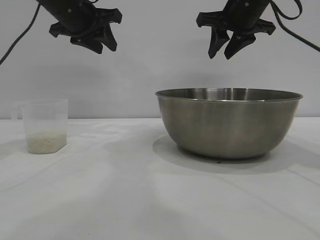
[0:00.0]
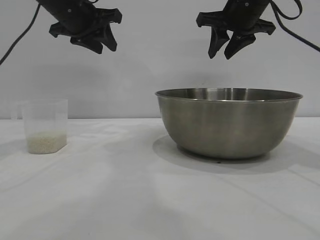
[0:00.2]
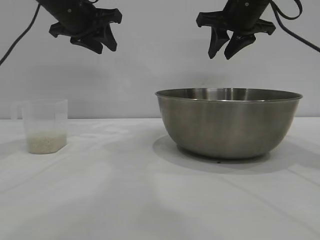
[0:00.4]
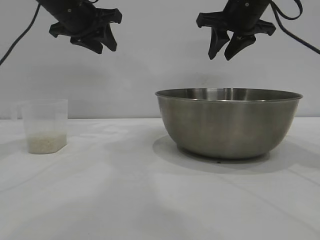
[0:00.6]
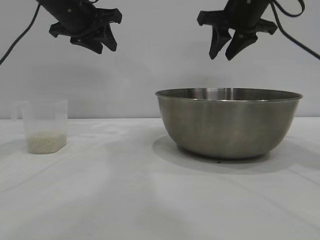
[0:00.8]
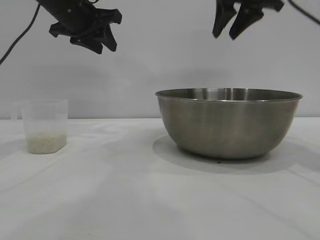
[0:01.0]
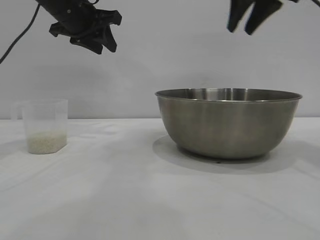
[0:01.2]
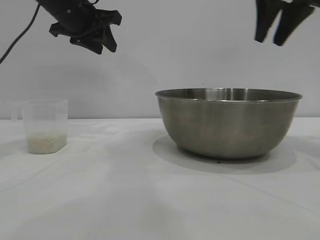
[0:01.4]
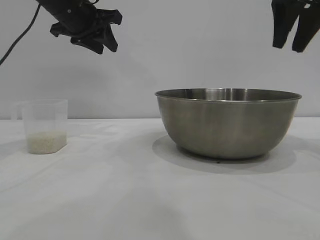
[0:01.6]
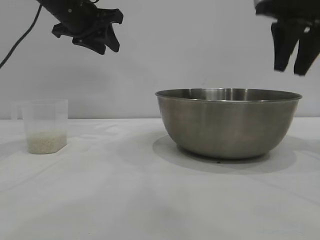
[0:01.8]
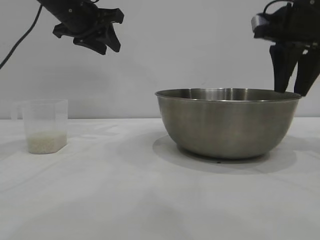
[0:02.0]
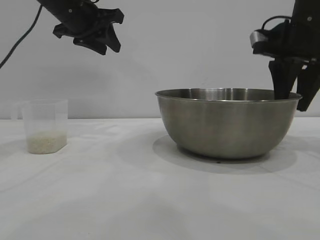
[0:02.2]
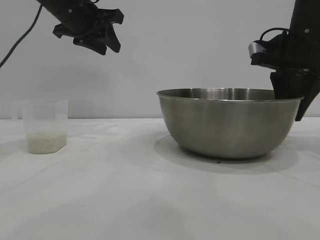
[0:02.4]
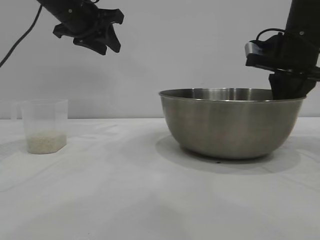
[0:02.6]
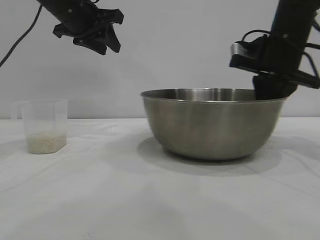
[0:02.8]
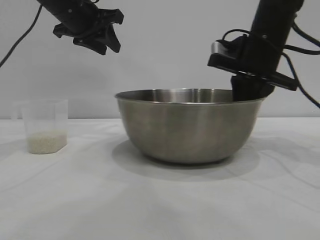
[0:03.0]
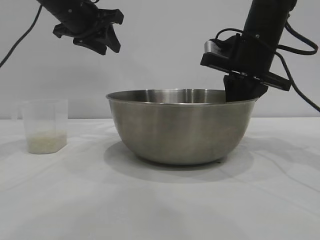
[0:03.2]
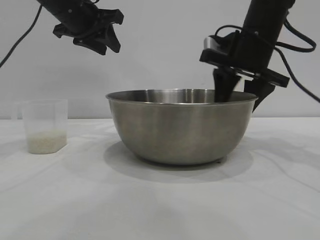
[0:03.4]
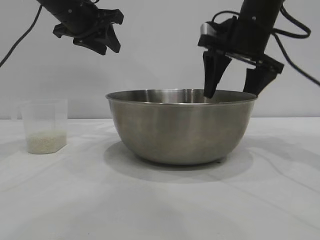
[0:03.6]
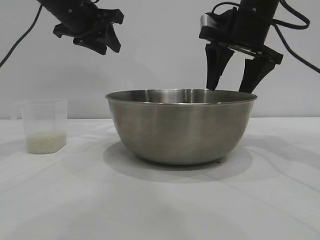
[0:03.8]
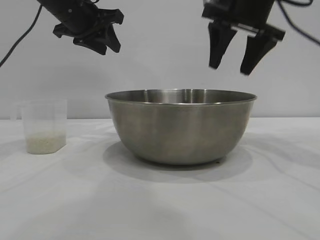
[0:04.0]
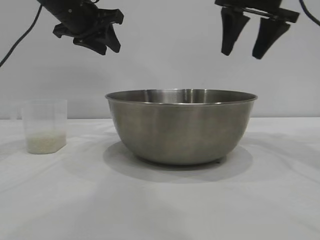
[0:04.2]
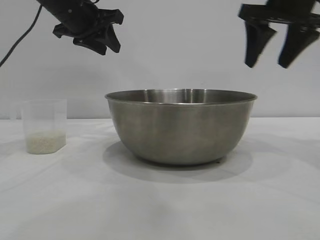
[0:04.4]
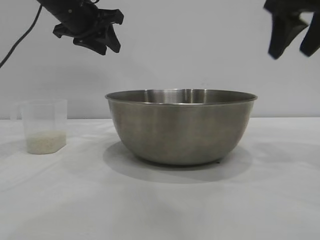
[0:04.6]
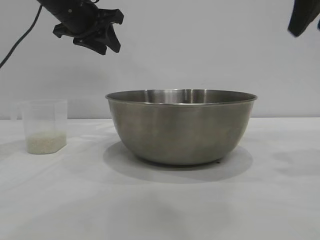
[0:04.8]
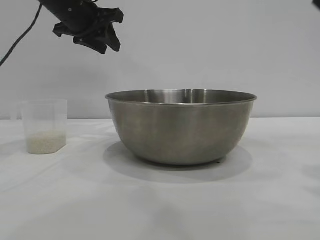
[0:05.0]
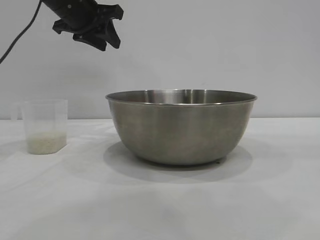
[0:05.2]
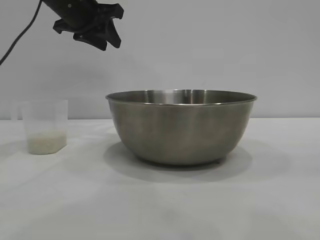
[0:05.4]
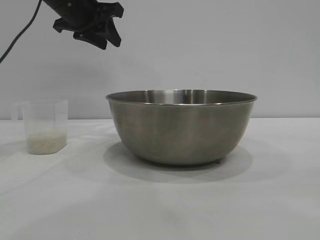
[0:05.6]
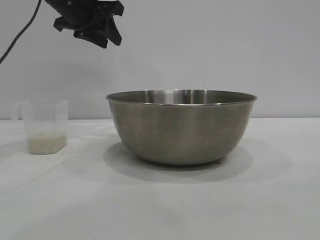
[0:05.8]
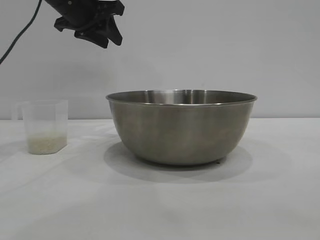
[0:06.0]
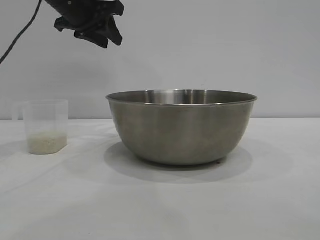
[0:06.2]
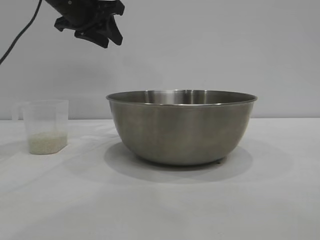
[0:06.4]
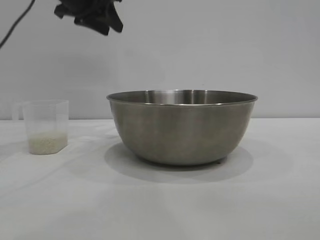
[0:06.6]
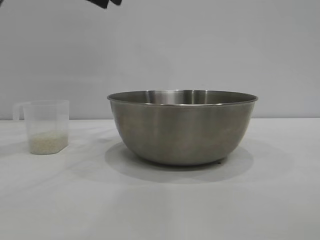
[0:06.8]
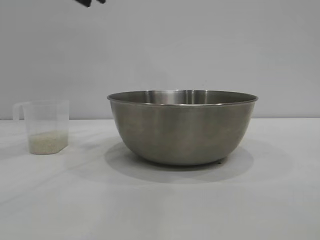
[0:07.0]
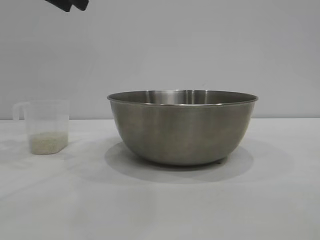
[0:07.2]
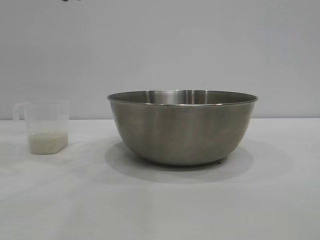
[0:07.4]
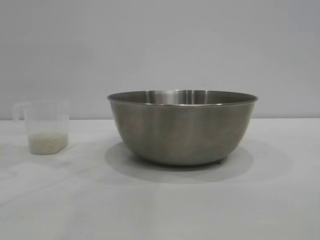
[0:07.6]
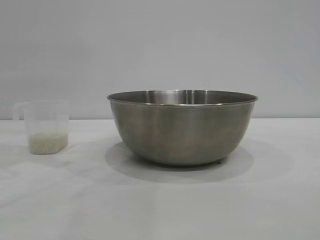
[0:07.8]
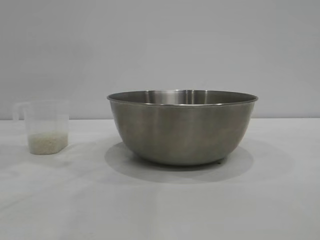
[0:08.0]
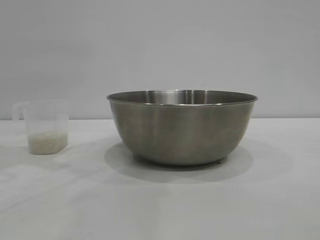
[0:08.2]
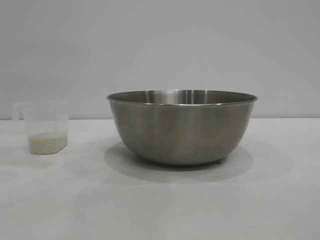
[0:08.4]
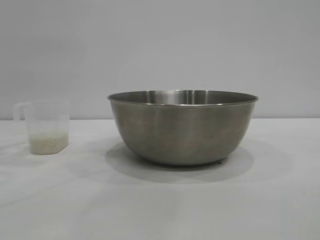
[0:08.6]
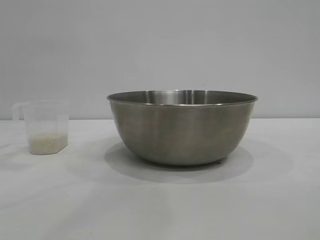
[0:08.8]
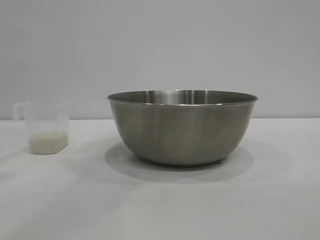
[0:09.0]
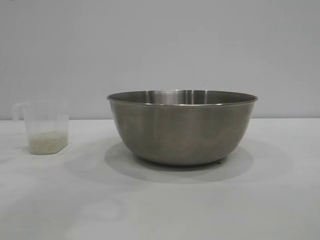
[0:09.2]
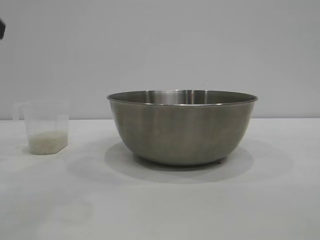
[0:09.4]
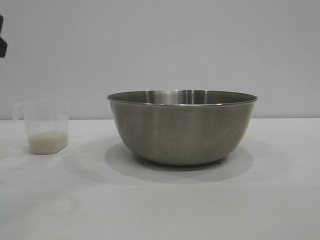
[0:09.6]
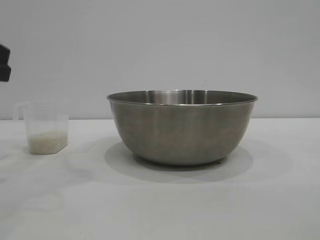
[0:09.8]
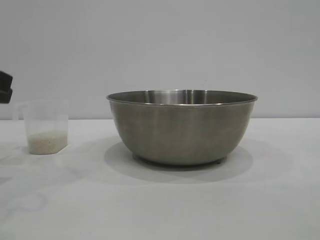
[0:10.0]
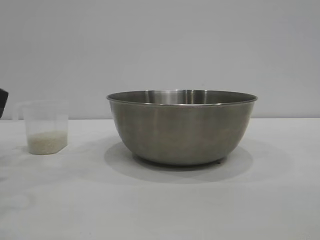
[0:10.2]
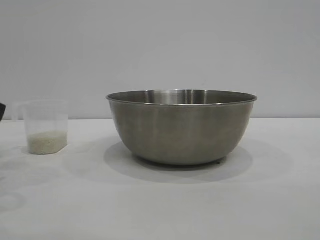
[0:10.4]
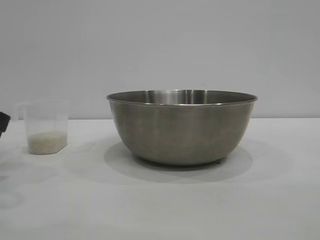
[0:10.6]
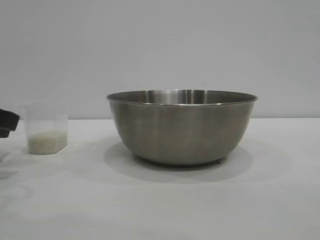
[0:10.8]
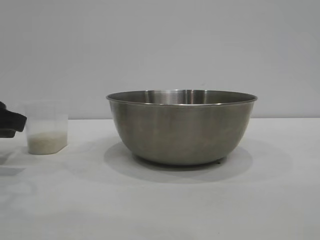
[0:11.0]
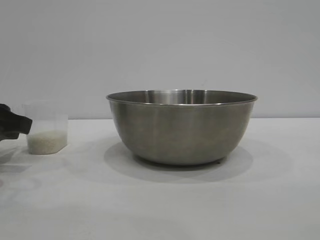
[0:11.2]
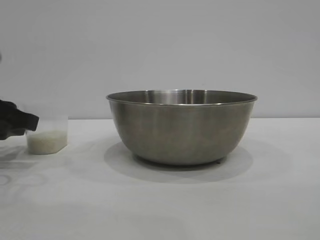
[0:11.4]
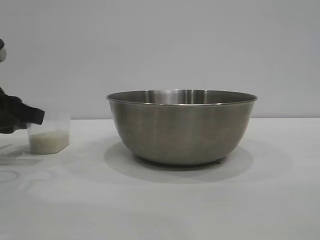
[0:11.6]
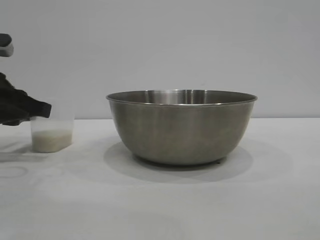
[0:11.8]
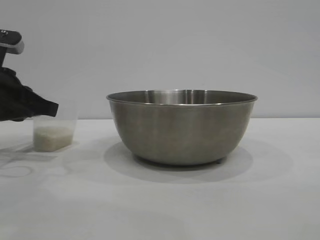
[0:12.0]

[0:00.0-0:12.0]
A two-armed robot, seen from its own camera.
Task of the whole recording: the right gripper grasp the rice container and place it in the center of the table, the left gripper grasp the rice scoop and pour the rice into the rice container.
Step, 0:00.0 to 0:03.8: Move the bowl to the center of view with the right gripper.

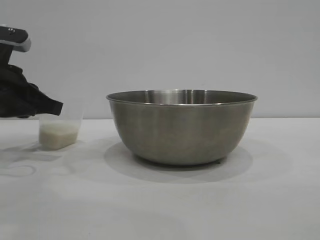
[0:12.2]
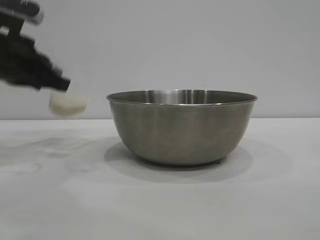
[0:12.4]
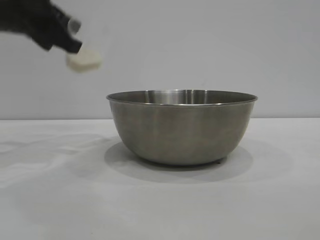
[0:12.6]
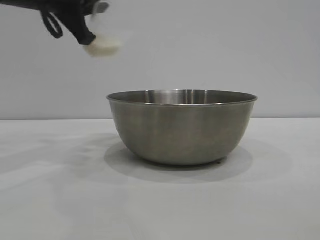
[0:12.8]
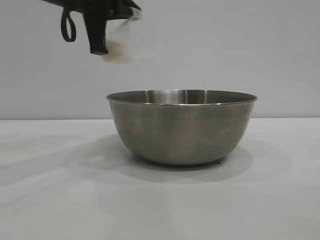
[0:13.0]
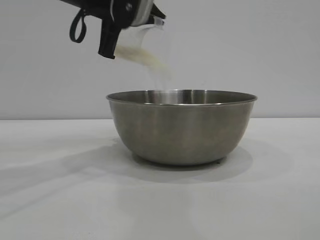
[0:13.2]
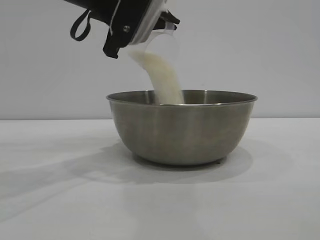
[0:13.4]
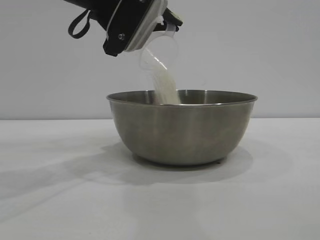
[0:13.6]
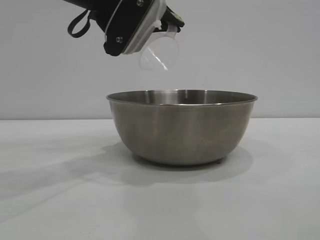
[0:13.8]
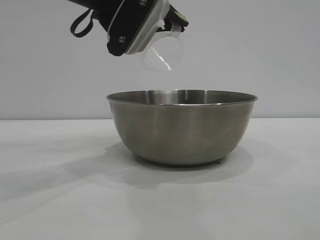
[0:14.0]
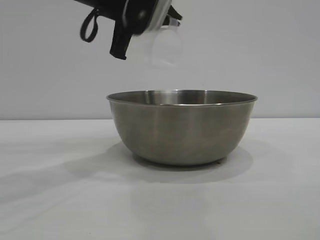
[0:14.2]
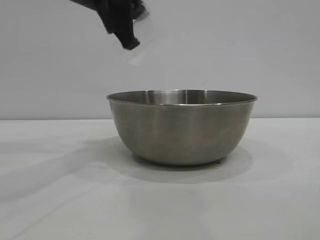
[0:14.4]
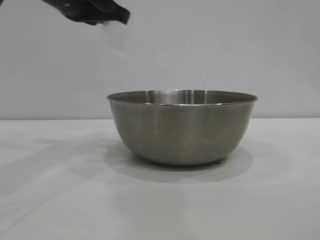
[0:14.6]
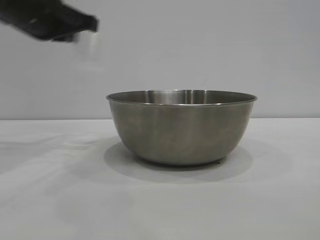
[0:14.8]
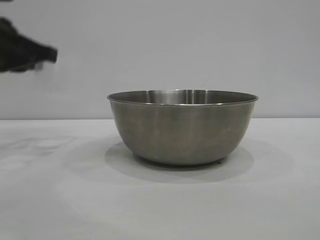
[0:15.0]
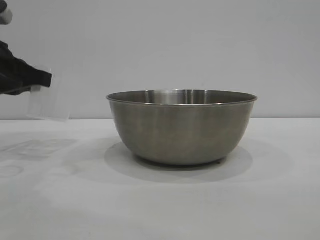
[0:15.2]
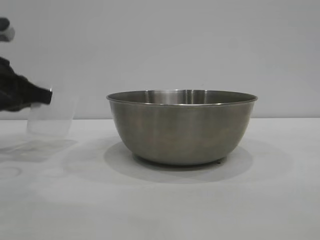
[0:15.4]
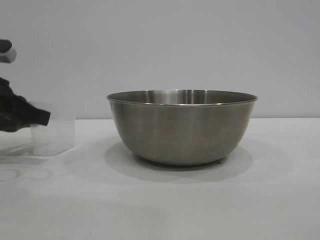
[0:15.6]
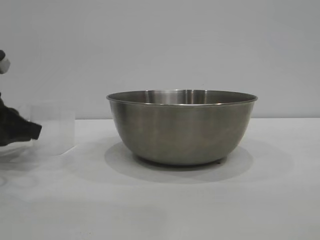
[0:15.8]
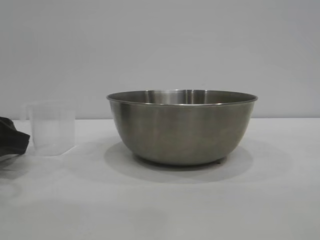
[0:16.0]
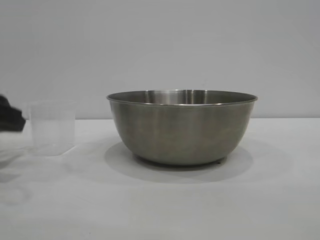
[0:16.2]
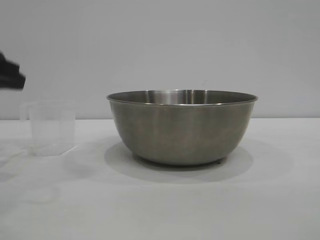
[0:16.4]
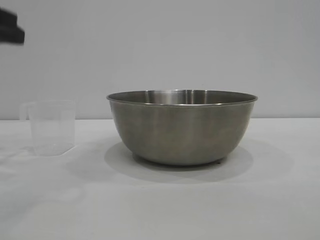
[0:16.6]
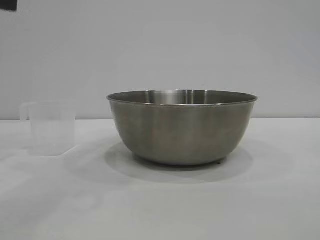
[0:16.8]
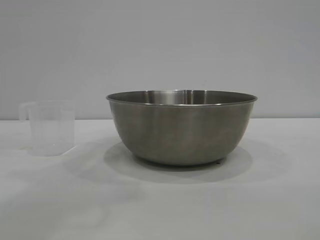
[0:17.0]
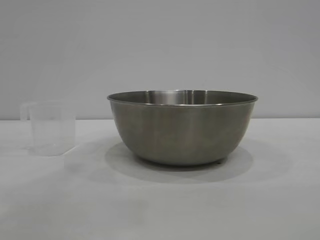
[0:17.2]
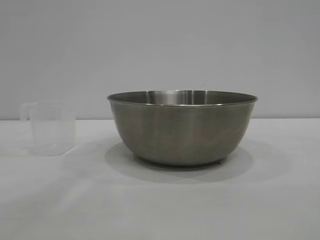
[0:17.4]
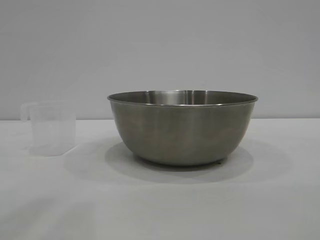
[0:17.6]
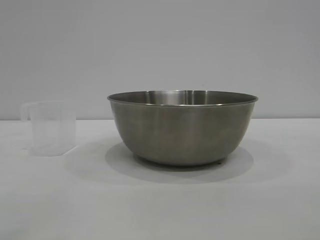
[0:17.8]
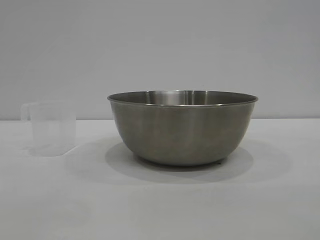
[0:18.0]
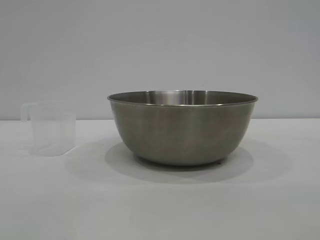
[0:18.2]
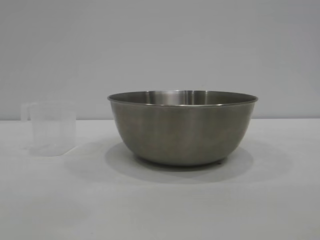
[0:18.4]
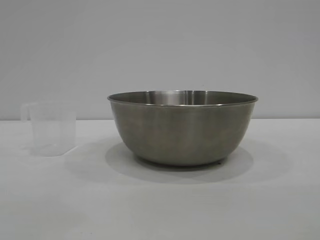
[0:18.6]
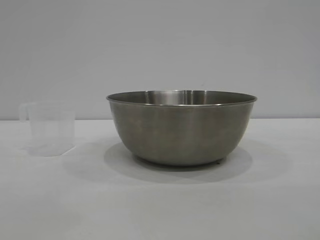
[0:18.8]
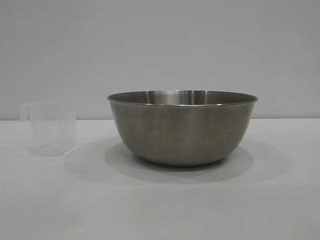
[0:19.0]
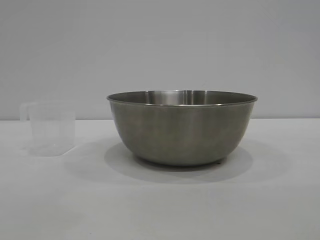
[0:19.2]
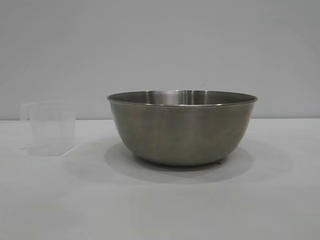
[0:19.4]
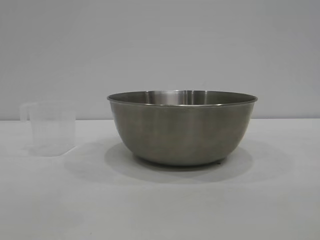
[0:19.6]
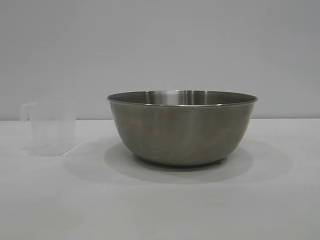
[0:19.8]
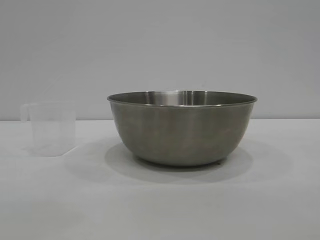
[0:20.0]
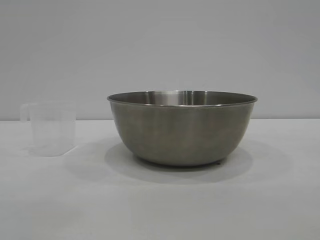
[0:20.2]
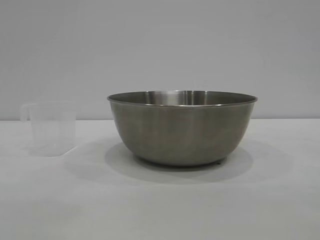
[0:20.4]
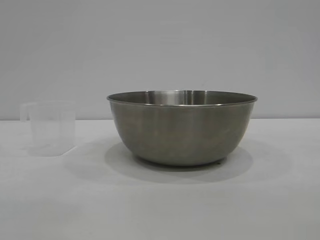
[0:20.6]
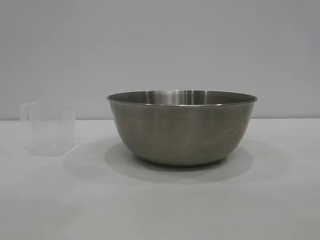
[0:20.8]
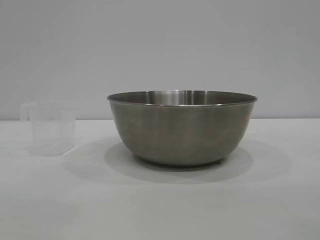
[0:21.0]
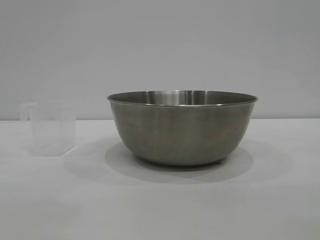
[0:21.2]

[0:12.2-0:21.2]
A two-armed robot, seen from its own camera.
Task of the whole recording: the right gripper grasp the rice container and place it in the center of the table, the left gripper grasp the rice scoop and pour the rice into the rice container.
Step, 0:12.4 to 0:13.8: Pour the rice from the cup into the bowl with the left gripper.
Step, 0:14.0 to 0:16.0: Place the cup on the table with the left gripper.

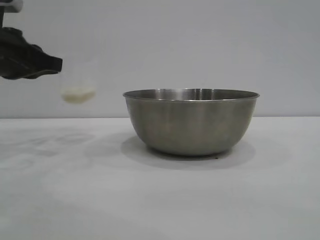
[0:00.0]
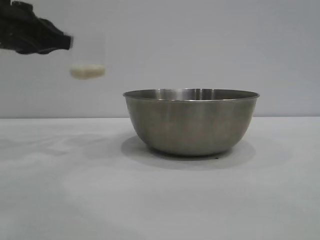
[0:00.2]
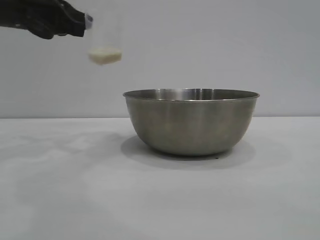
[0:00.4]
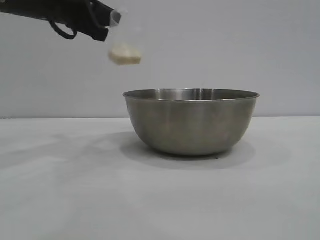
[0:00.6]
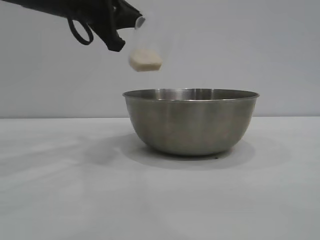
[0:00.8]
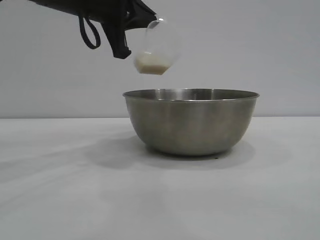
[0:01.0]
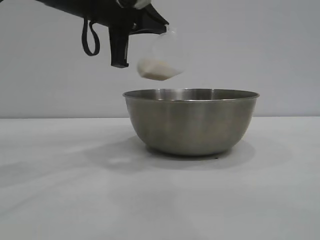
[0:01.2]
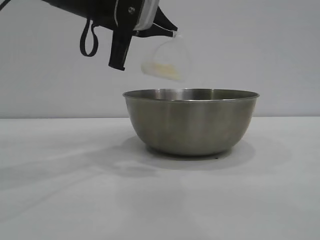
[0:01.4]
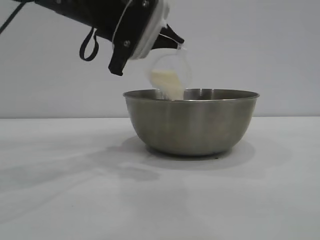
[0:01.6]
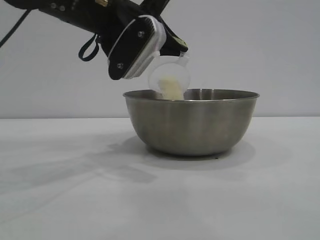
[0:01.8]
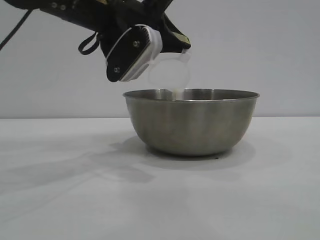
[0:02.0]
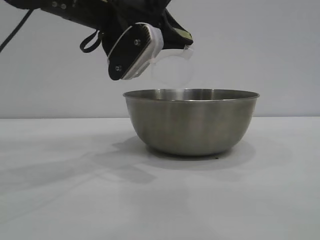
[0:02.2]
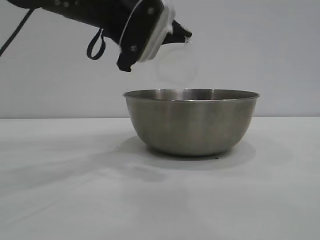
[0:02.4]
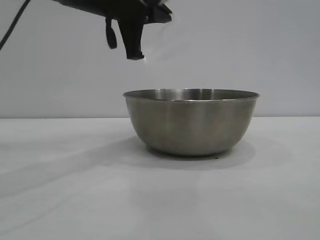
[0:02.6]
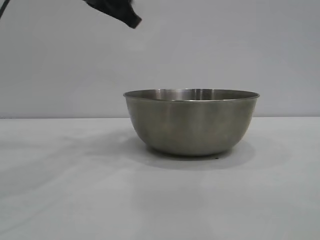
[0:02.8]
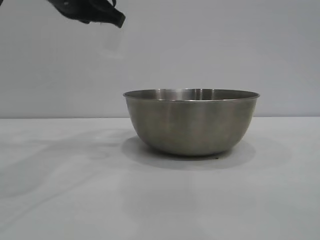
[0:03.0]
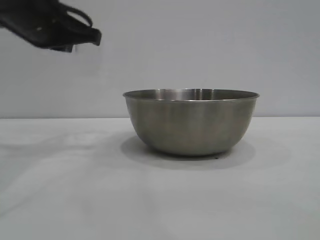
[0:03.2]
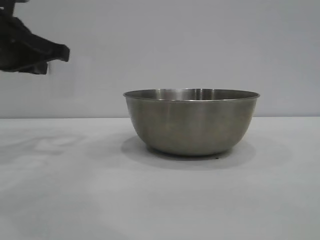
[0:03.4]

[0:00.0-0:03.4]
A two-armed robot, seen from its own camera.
Task of the whole recording: the right gripper grasp the rice container and place it in the center of the table, the left gripper grasp the rice scoop and pour the rice into the rice container.
Step, 0:00.0 to 0:02.2: Pour the rice from the cup into the bowl with the left gripper.
